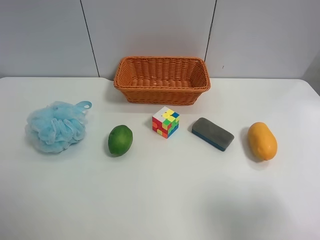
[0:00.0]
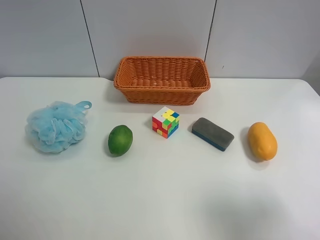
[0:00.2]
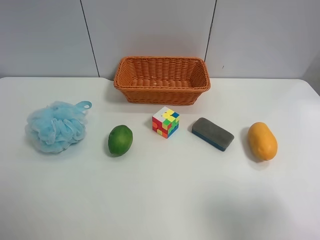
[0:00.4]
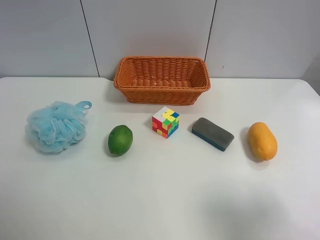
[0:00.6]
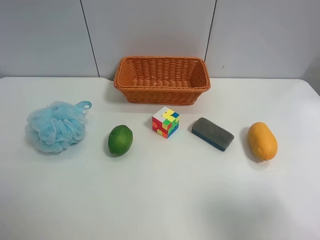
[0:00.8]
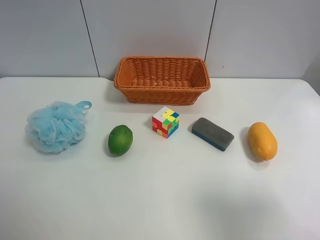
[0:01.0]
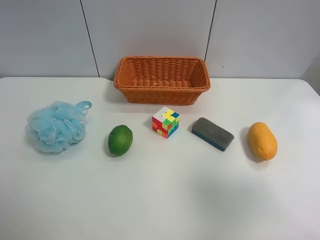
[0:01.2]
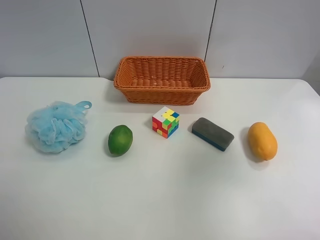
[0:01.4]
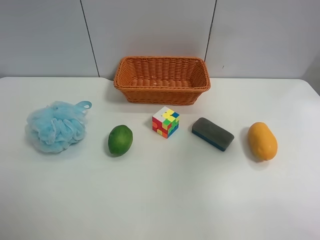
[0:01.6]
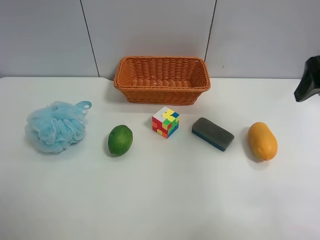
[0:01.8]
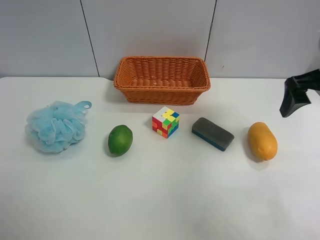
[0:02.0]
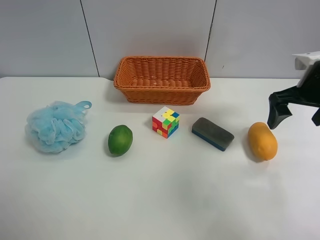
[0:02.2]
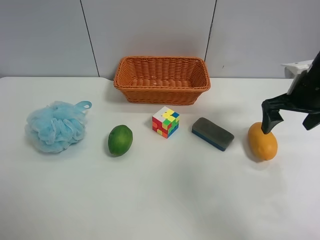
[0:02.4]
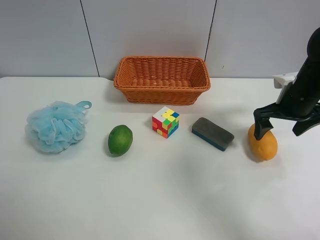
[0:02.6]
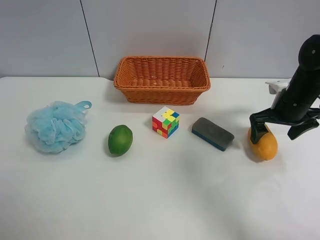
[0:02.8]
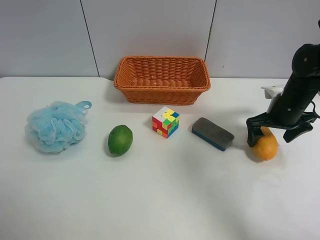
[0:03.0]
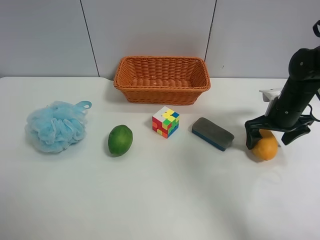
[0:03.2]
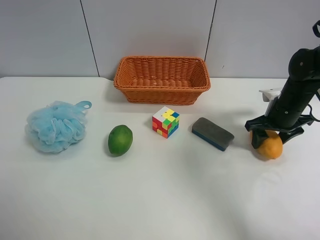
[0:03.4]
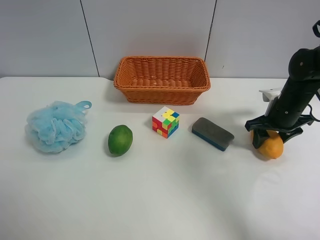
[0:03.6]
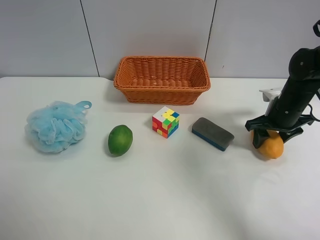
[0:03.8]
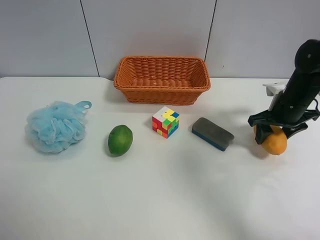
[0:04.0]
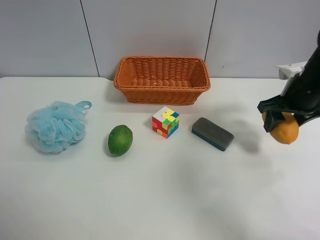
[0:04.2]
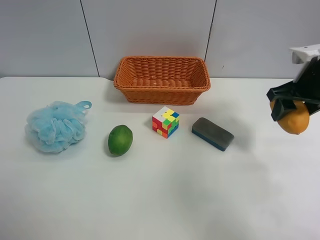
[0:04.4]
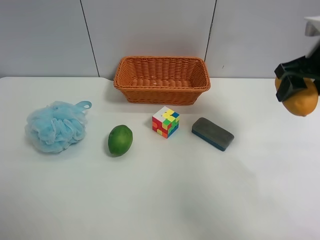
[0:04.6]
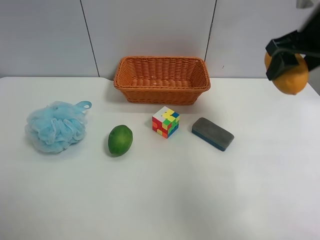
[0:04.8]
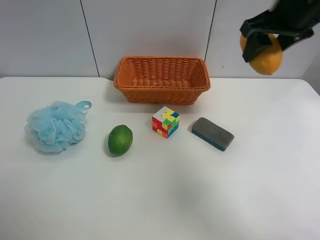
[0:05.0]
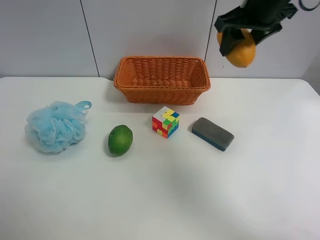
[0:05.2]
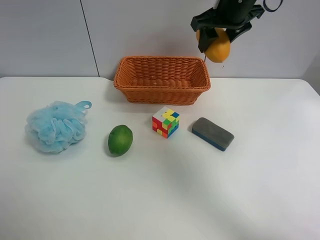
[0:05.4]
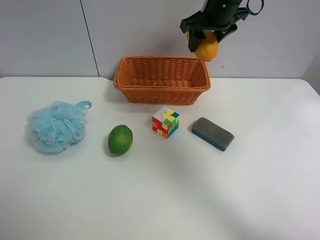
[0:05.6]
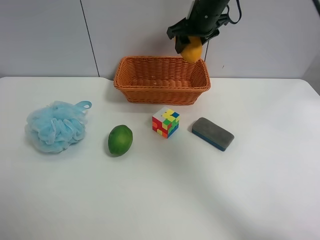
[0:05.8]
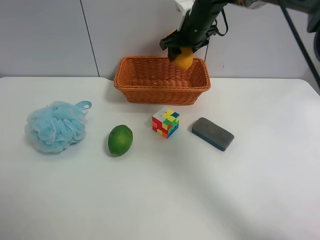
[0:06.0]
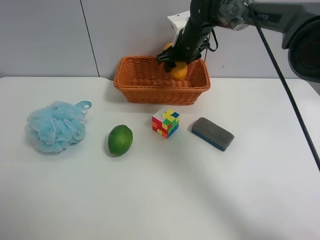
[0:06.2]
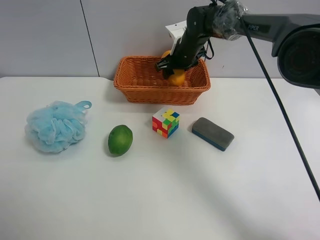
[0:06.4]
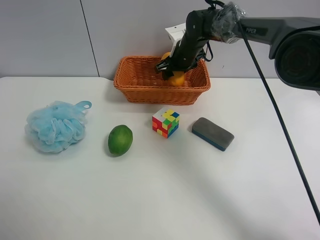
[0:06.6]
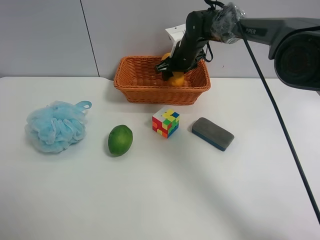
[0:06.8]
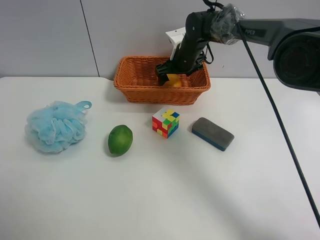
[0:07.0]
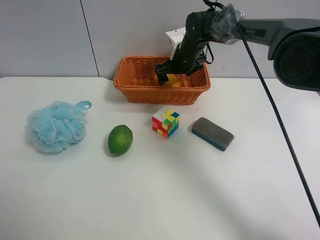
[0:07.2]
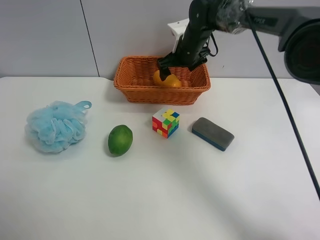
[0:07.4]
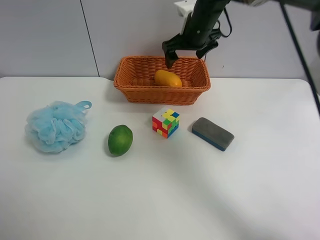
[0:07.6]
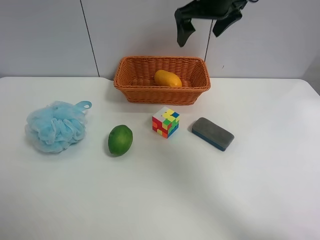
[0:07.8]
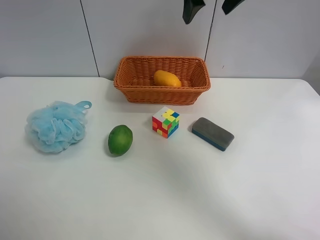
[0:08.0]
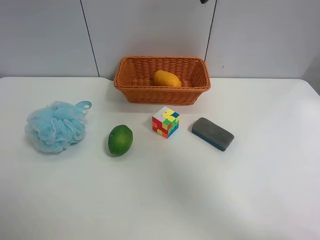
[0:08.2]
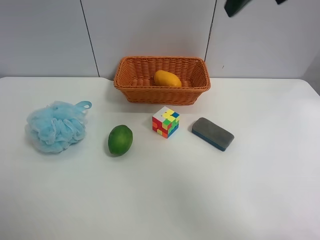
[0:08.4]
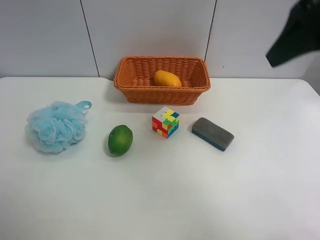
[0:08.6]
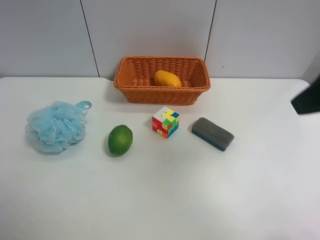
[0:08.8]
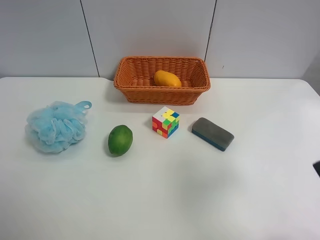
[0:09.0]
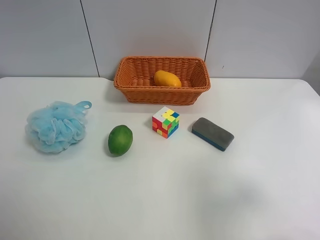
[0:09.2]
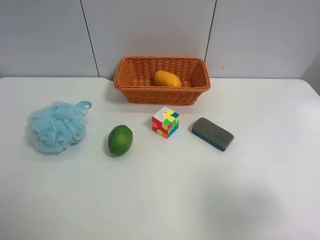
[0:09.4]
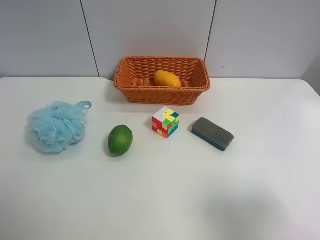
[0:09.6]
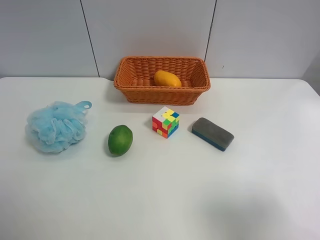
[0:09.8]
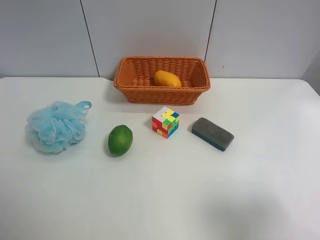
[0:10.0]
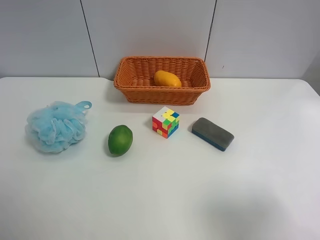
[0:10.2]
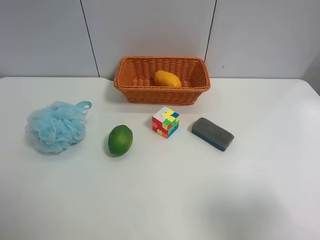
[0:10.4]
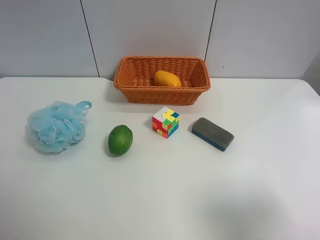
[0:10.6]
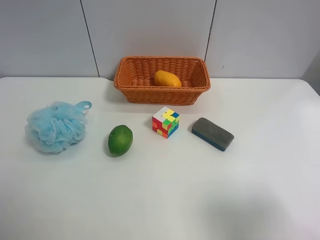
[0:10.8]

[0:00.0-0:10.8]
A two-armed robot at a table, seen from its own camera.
Task of the whole recording: Randomly grab green lemon or mangoes from the table and put them in a basket.
Step, 0:00.0 to 0:03.6: Grasp the mango with the right gripper.
Step, 0:03.8 to 0:07.6: Place the mango into the basket with the right gripper.
0:00.0 to 0:01.6: The right gripper is displaced forward and upward by about 20 cm.
0:01.6 to 0:03.0: The right gripper shifts some 25 cm downward and forward.
0:03.0 to 0:04.6: The right gripper heads upward, covering some 15 cm, and closes its fingers.
0:04.6 to 0:06.2: The right gripper goes about 30 cm forward, to the left and downward.
0:06.2 to 0:07.8: The right gripper goes roughly 15 cm upward and backward, and opens up.
0:07.8 to 0:09.2: The right gripper heads backward and to the right, covering approximately 40 cm.
0:09.2 to 0:10.8: The right gripper travels backward by about 5 cm.
